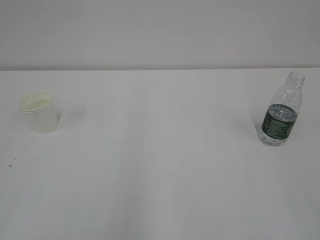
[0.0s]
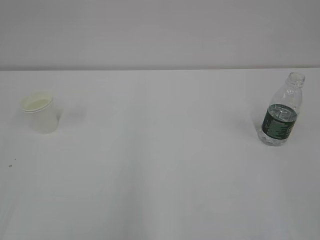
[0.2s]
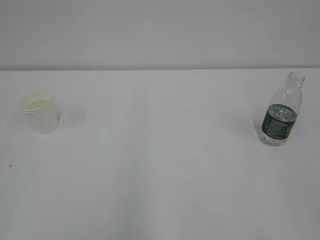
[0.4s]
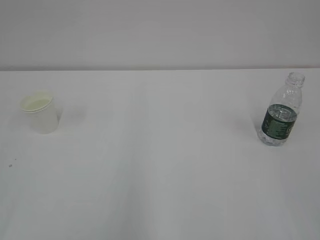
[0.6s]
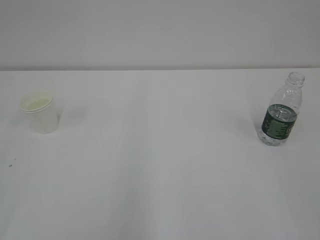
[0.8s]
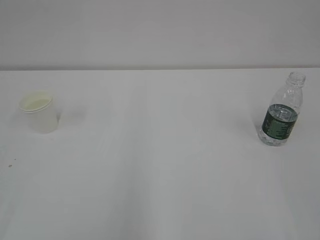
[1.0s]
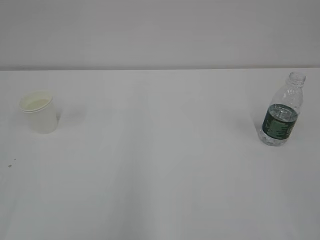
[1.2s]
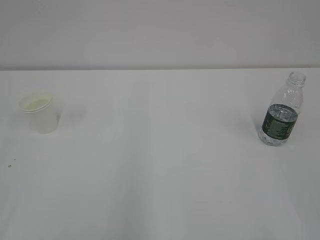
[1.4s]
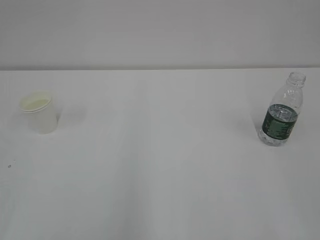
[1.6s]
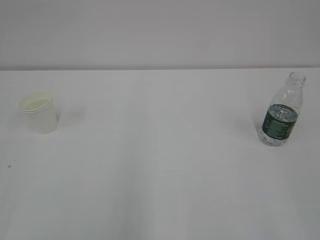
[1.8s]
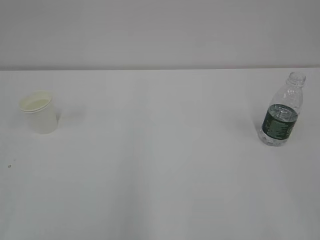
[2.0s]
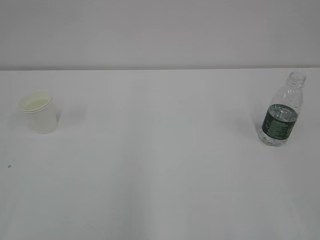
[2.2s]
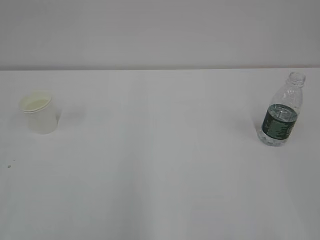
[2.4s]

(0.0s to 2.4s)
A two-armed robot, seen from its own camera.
0.0s - 1.2s: Both grippers stay put.

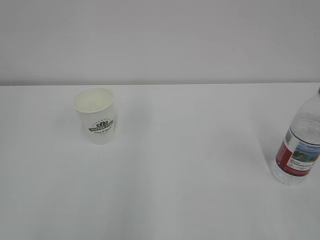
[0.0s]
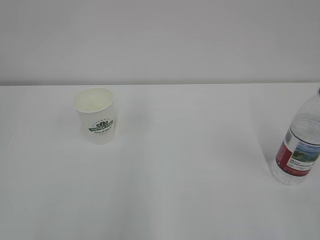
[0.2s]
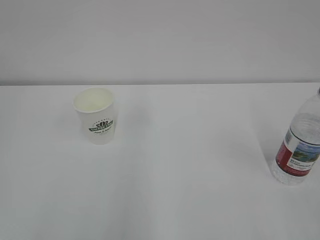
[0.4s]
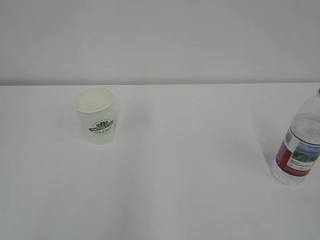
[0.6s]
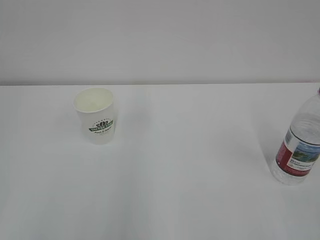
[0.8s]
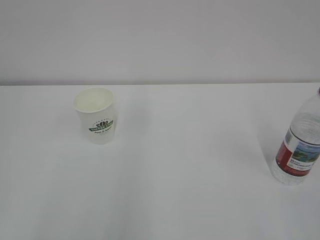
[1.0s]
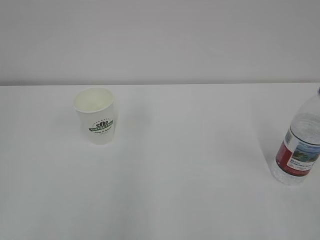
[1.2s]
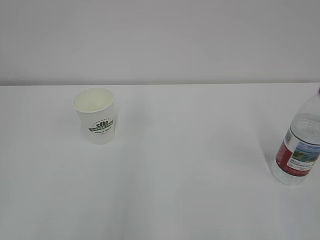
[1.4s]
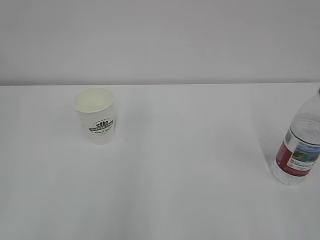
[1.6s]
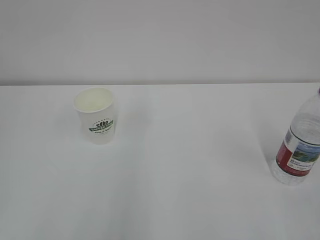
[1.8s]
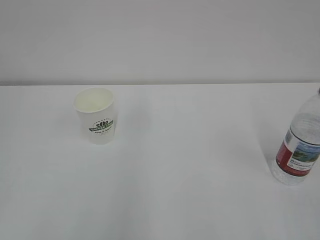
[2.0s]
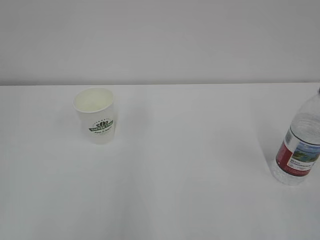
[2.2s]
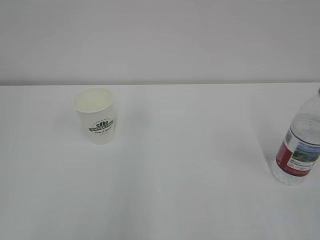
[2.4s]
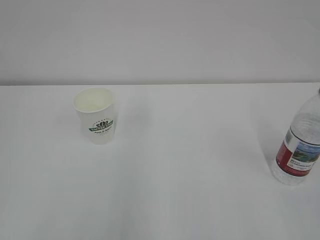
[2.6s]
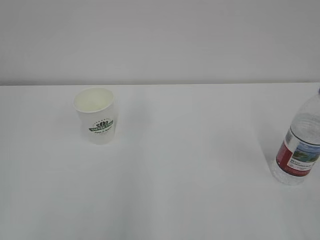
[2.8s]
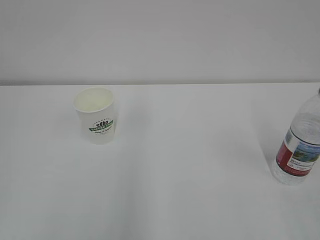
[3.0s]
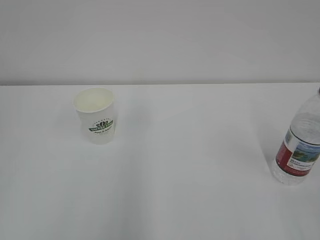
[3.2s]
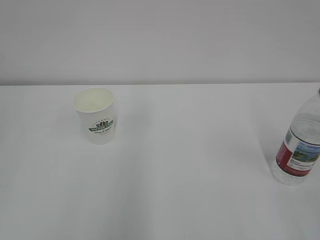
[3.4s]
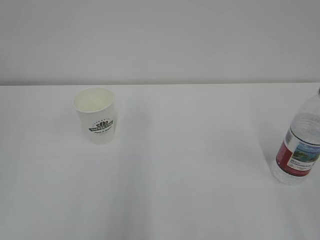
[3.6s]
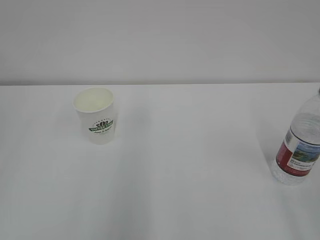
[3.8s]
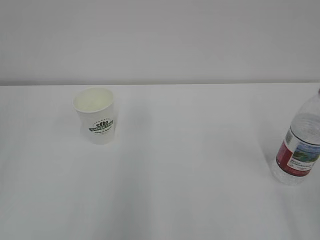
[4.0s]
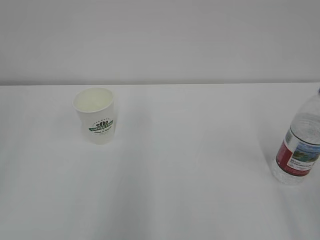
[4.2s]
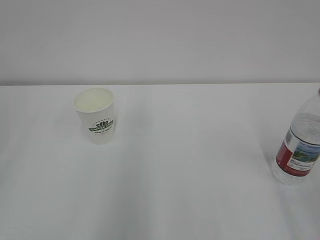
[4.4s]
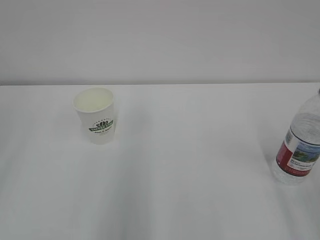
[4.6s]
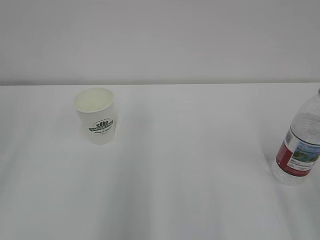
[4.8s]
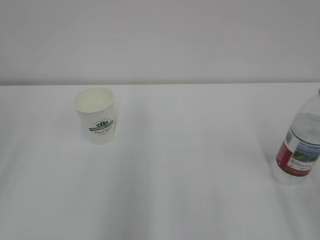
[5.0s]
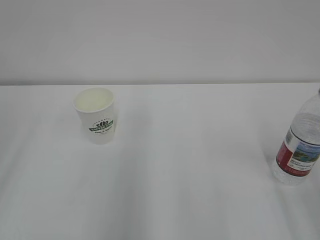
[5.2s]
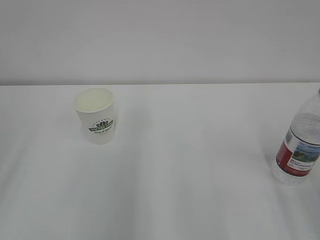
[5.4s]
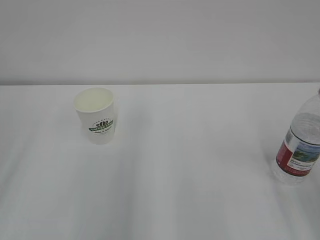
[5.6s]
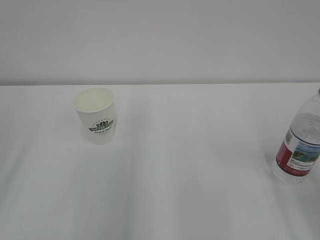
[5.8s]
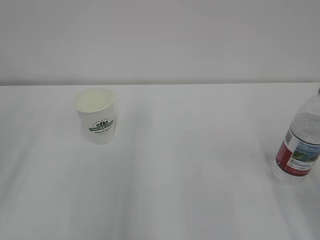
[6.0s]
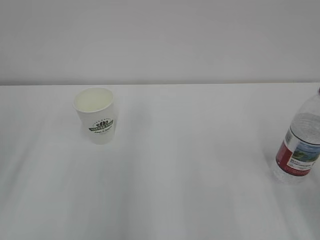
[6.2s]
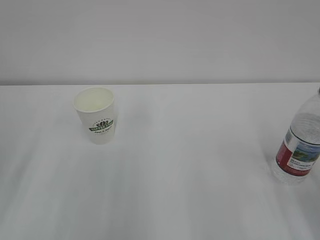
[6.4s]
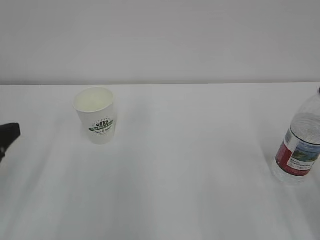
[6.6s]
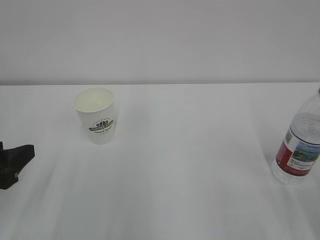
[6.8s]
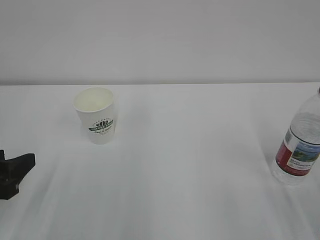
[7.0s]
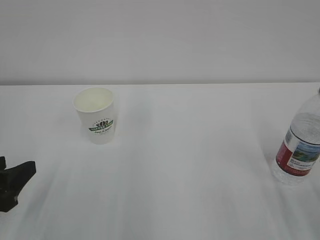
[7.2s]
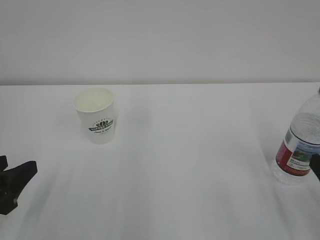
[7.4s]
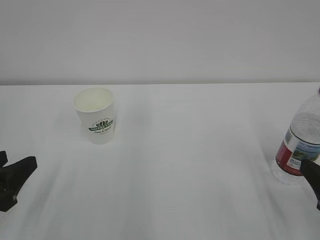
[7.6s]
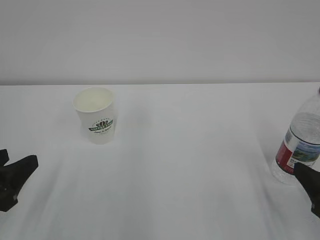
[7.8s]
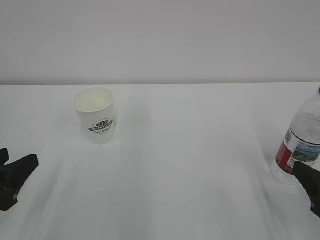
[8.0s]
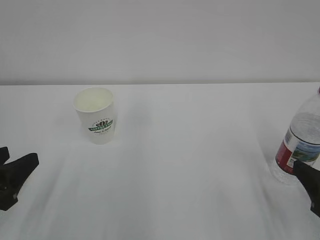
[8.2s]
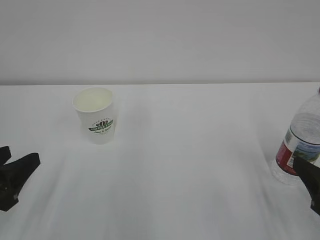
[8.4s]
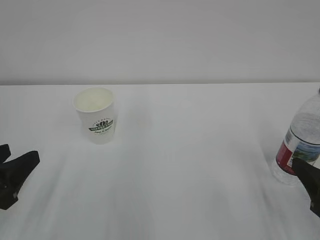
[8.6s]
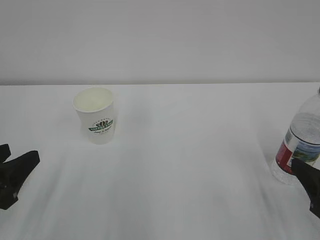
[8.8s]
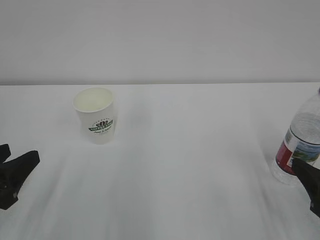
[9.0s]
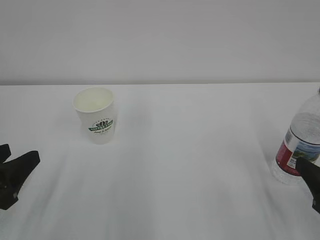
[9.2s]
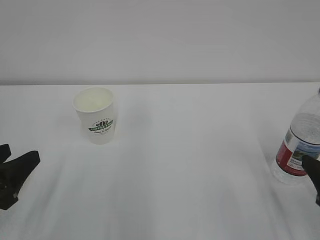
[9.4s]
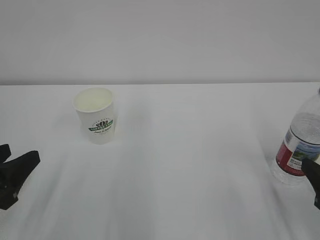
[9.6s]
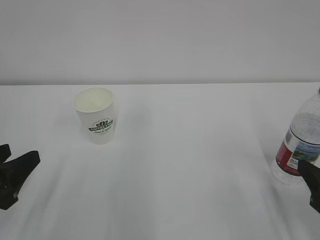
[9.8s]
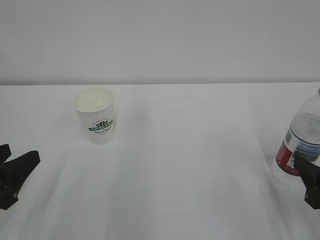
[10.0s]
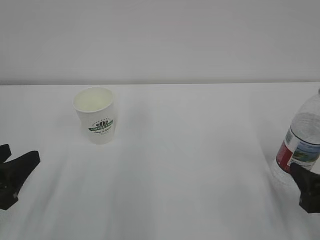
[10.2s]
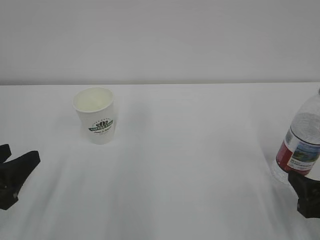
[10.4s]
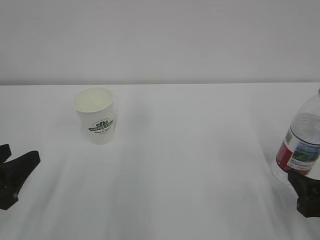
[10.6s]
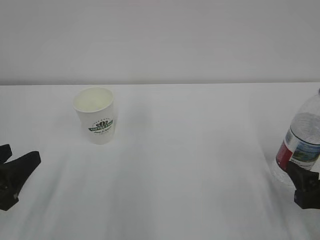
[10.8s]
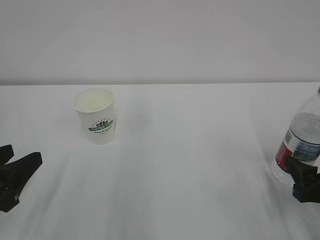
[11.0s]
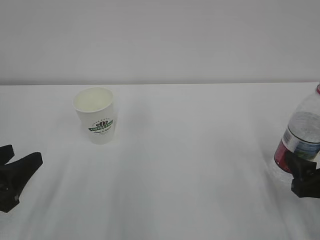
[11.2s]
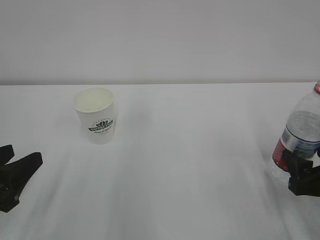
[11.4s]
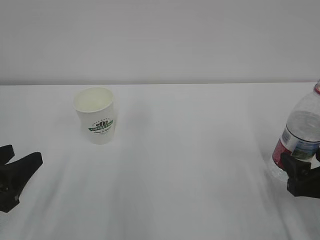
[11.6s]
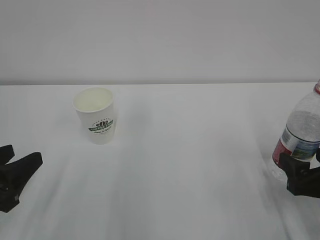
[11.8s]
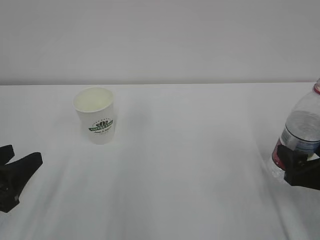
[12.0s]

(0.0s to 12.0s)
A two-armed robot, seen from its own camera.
6.0s - 7.6s: Both grippers move downward, about 10 cm.
7.6s - 9.0s: The grippers move only a little.
9.0s - 10.4s: The right gripper moves roughly 5 cm.
10.4s - 12.0s: The grippers move only a little.

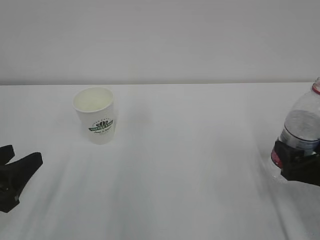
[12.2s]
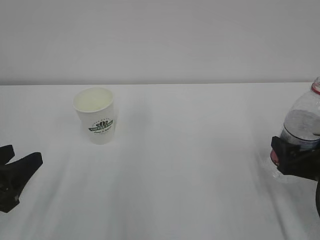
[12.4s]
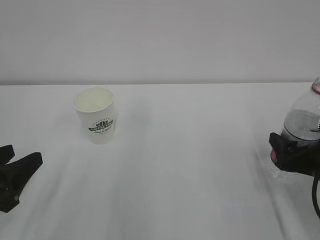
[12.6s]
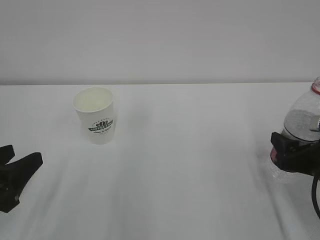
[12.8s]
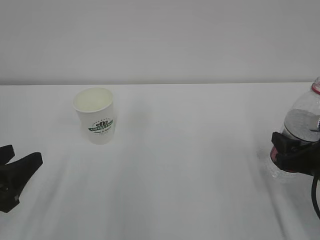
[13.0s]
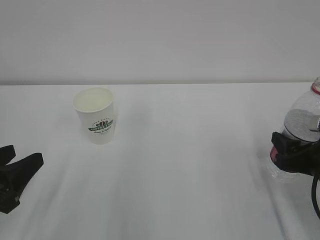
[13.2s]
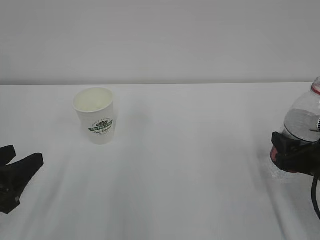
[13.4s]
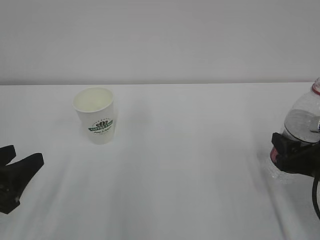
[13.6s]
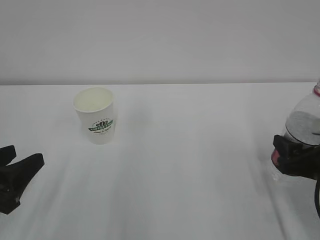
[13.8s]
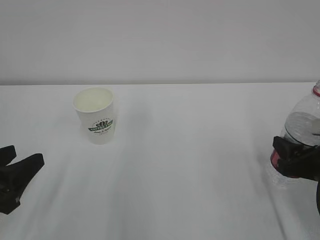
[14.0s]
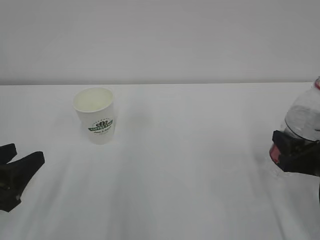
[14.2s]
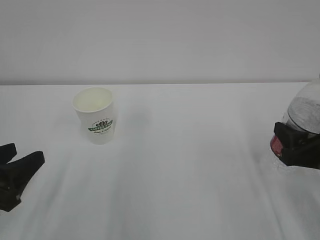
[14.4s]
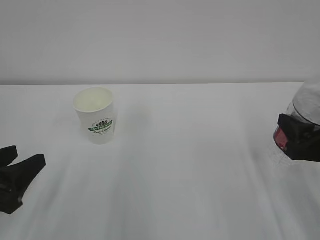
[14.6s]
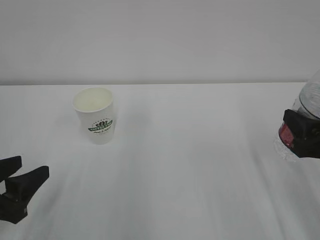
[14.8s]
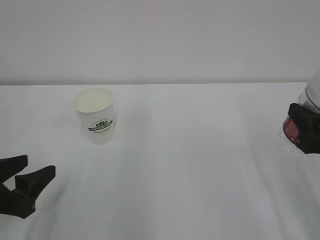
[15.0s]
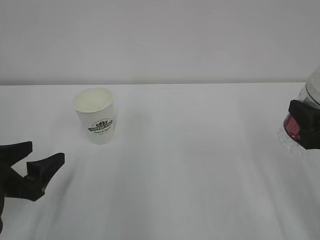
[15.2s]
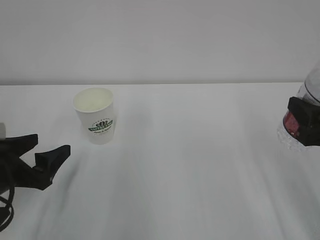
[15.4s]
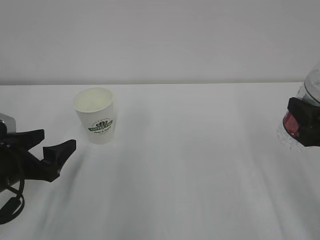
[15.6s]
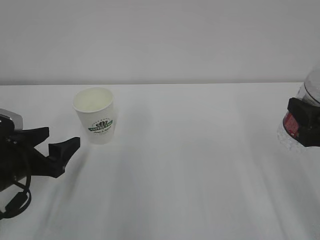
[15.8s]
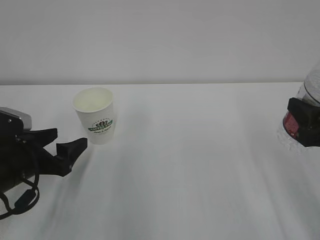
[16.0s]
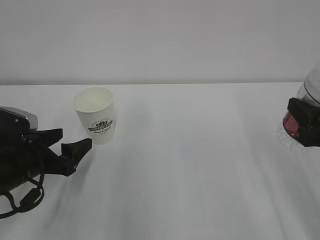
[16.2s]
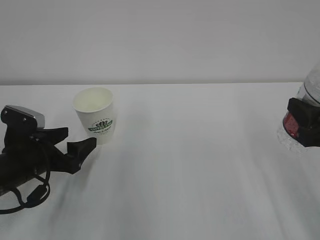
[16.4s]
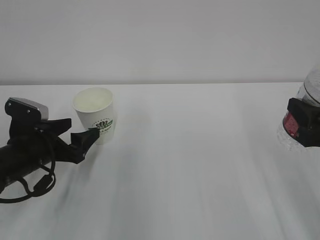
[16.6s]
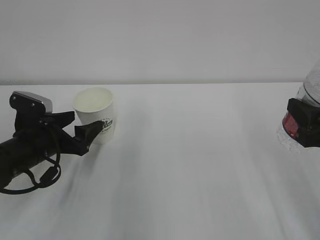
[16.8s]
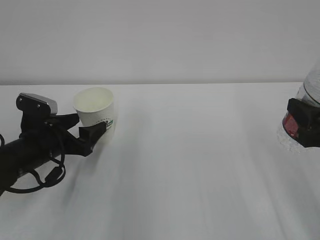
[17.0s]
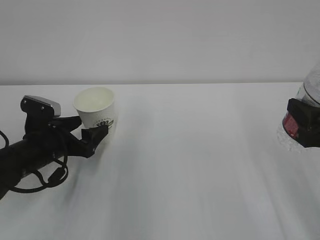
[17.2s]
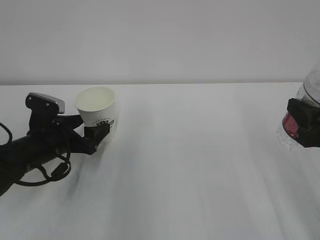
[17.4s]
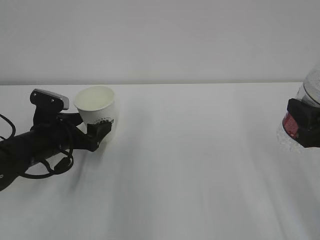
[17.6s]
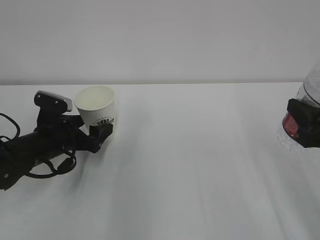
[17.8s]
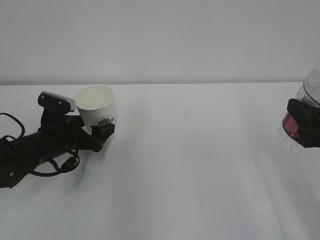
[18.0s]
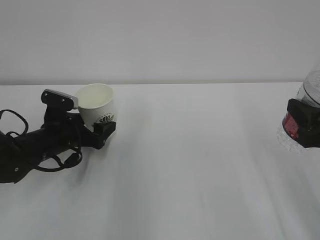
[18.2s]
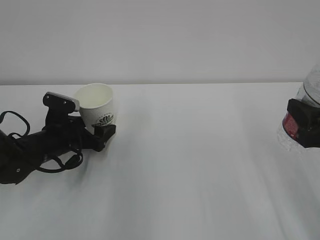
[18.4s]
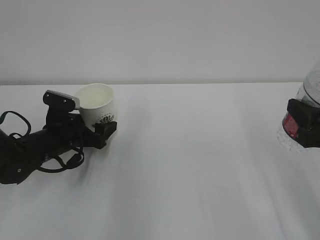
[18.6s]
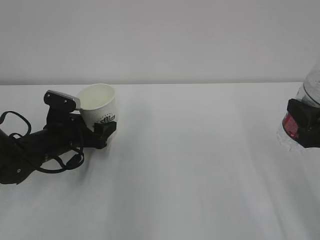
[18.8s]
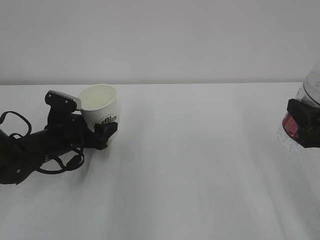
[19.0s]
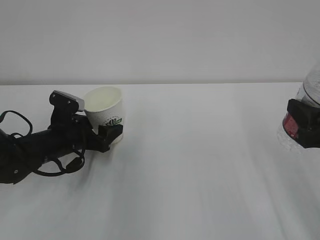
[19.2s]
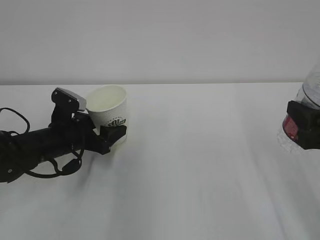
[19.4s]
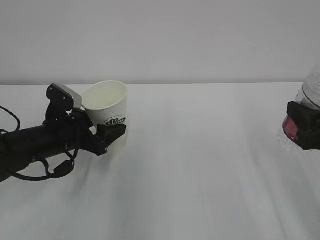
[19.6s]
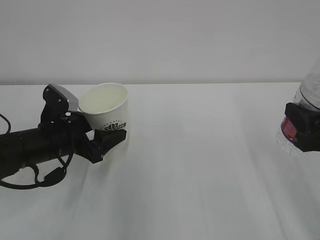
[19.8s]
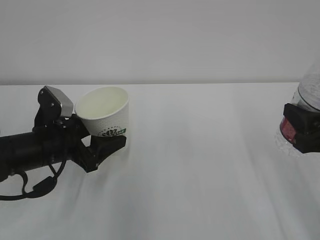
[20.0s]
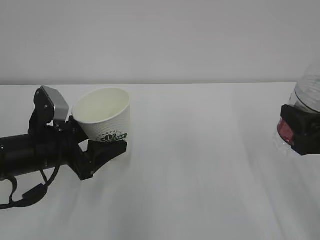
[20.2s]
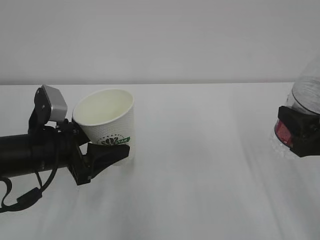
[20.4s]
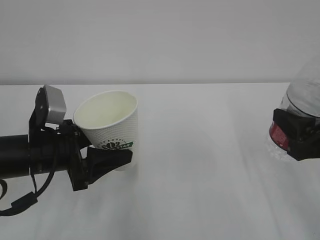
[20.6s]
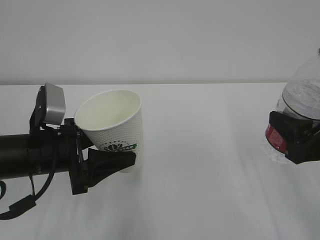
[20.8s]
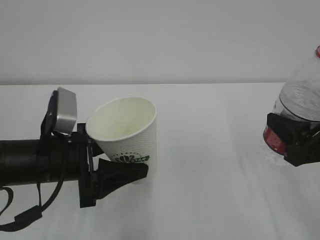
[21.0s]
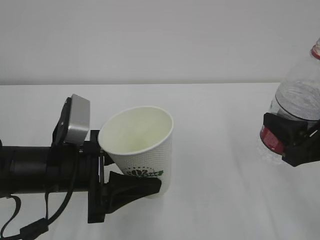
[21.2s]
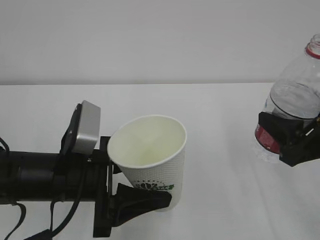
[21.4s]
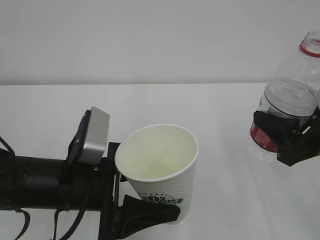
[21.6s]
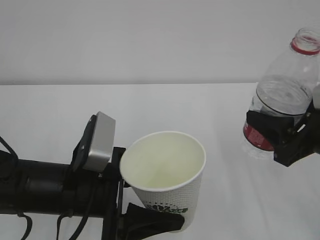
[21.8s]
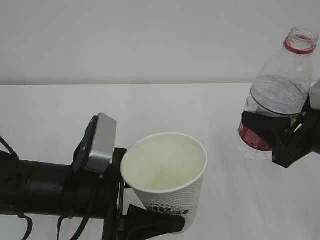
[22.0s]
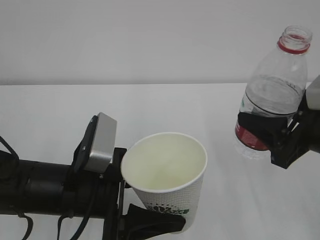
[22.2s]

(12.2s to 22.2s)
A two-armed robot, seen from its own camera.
12.2s - 13.6s: The right gripper closes its fingers.
13.6s - 15.0s: The right gripper heads upward, covering some 10 cm.
15.0s - 16.4s: The left gripper goes about 10 cm forward, and opens up.
16.4s - 18.0s: The left gripper shifts approximately 5 cm forward.
18.0s - 19.4s: The left gripper closes its fingers.
19.4s - 20.8s: The left gripper shifts roughly 10 cm backward and upward.
20.8s - 22.2s: The left gripper goes roughly 10 cm to the right and backward.
